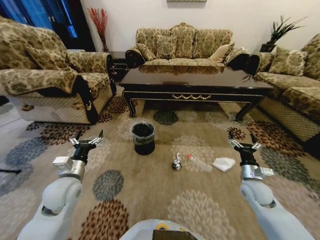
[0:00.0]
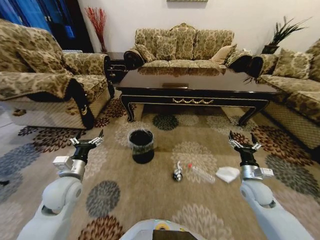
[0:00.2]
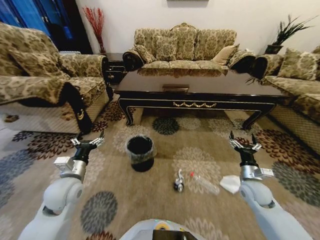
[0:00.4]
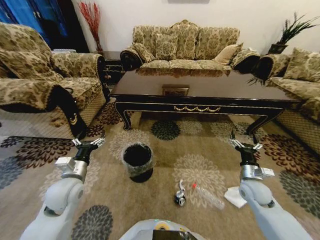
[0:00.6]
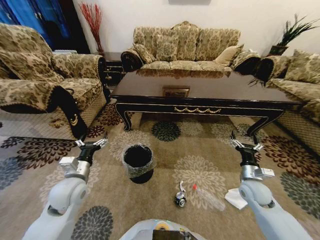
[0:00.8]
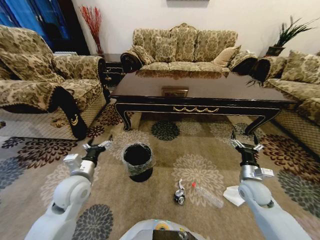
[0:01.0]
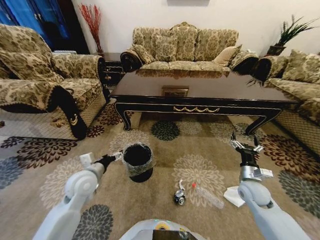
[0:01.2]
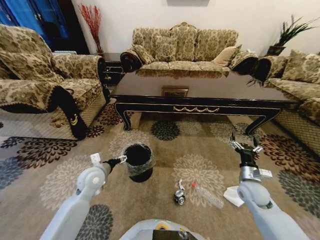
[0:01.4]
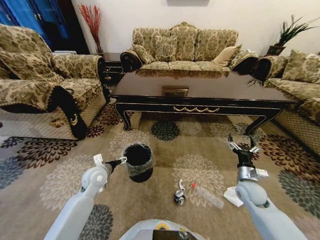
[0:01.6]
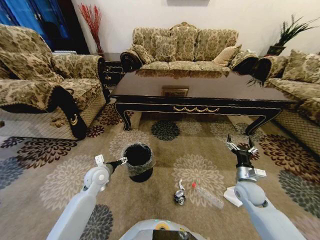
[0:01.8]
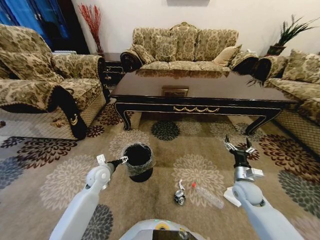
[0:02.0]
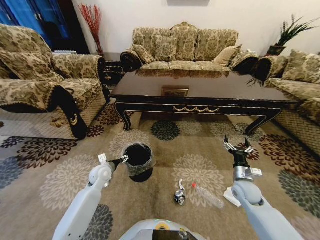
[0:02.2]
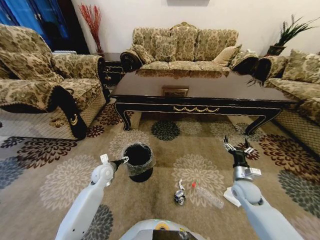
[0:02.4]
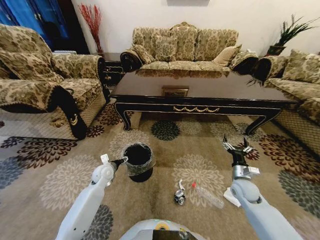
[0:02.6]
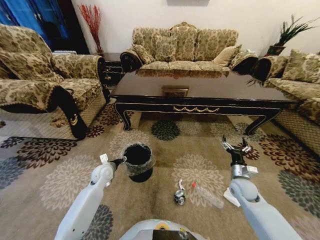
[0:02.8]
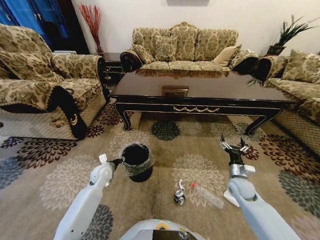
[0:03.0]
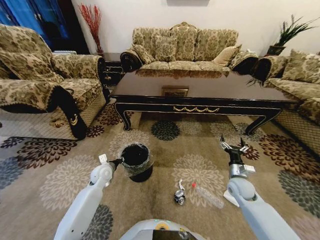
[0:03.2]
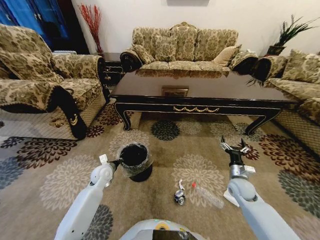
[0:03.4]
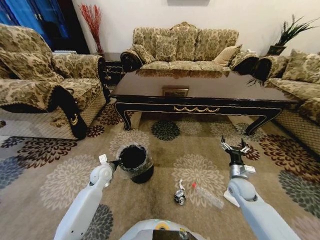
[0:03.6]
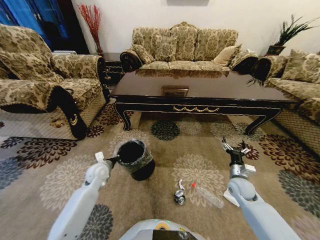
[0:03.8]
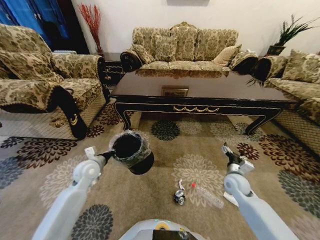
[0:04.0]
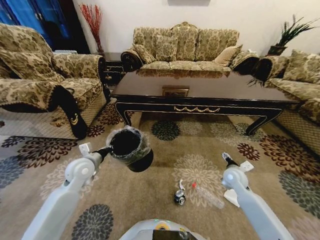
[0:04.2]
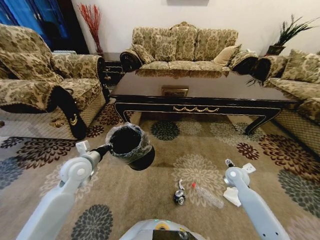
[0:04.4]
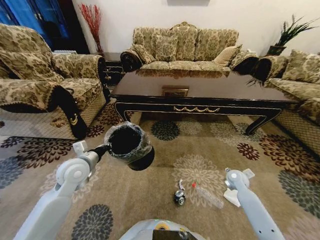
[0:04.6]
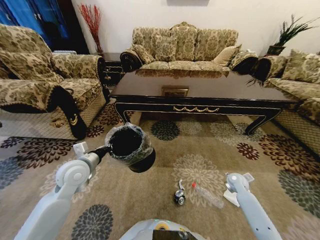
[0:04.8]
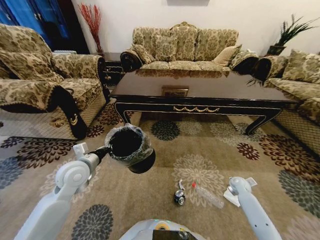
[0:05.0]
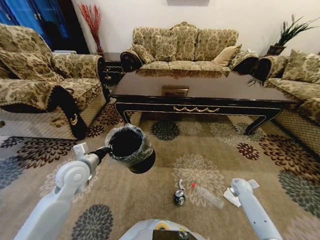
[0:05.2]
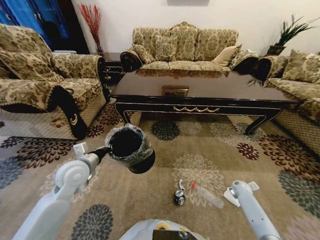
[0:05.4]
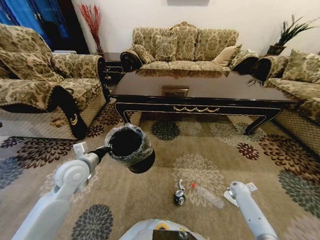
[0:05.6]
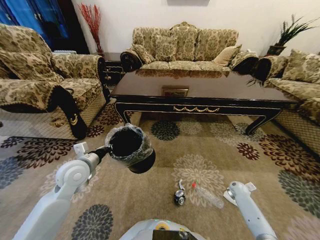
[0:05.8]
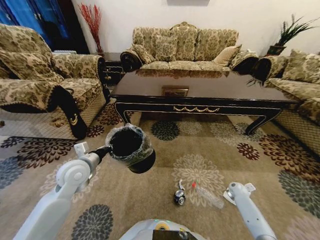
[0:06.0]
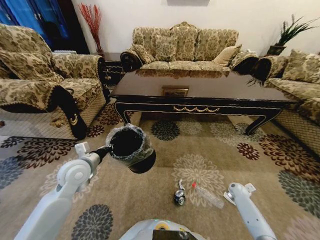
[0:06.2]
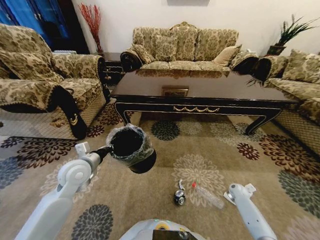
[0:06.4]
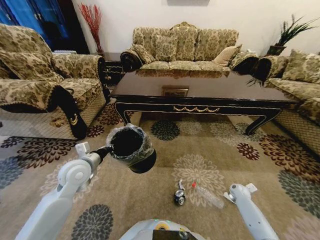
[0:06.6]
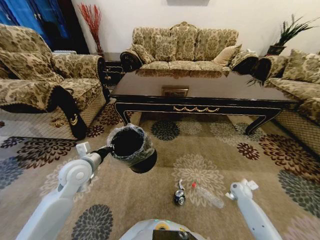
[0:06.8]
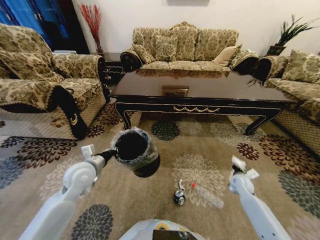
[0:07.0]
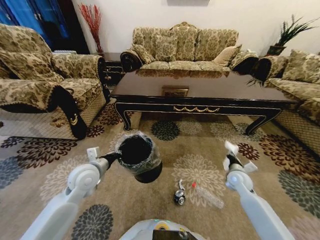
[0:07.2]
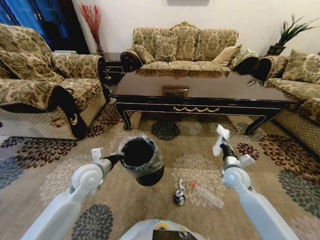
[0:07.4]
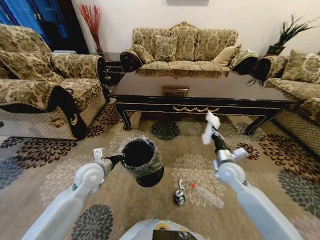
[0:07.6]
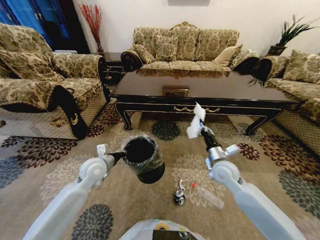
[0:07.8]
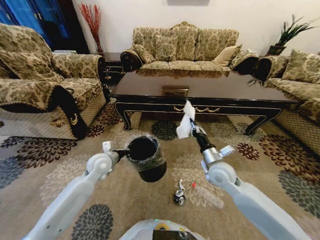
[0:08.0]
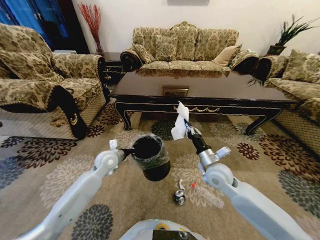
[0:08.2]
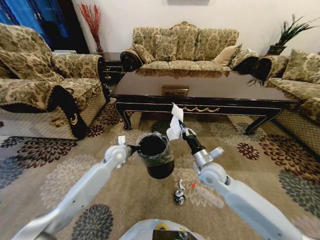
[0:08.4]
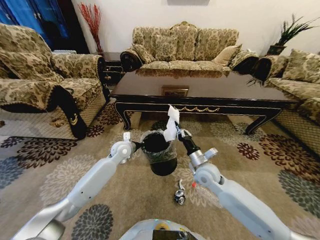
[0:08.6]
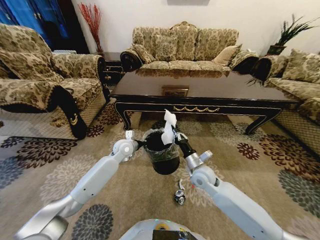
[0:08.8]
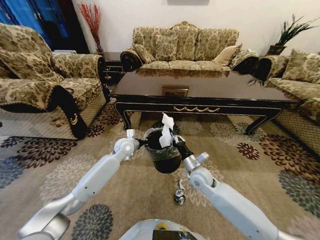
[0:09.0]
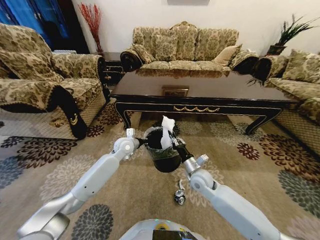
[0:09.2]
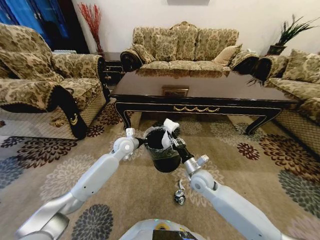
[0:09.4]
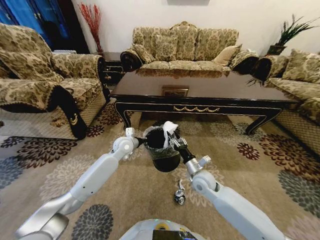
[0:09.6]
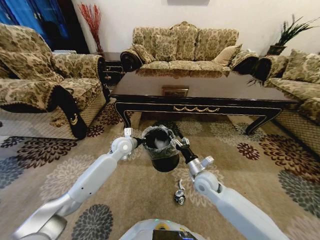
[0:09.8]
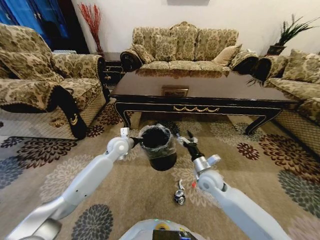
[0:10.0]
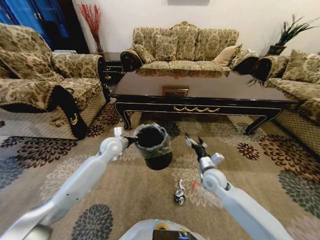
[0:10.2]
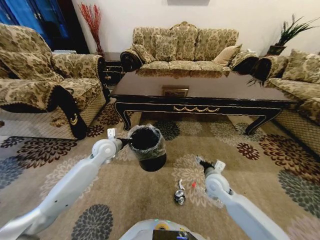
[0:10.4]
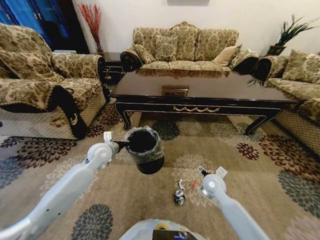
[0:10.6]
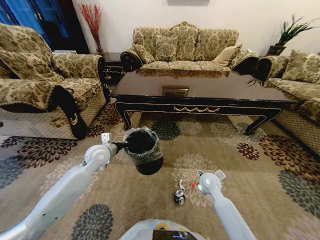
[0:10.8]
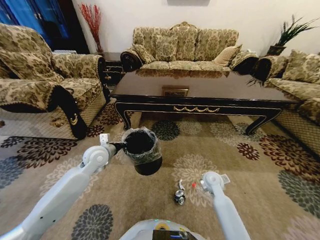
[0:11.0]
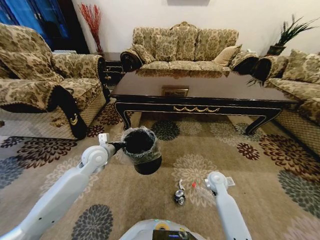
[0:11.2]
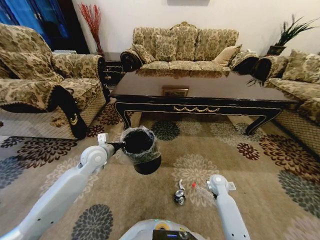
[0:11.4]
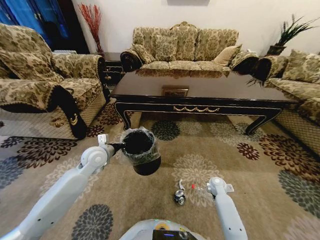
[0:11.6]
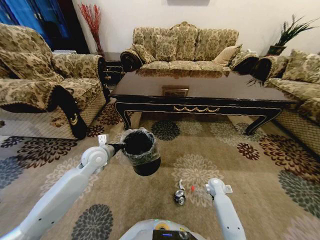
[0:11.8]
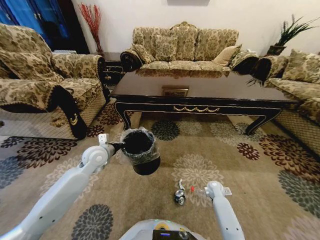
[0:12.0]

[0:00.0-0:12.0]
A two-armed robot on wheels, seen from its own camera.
Task of the whole recording: Move to the front of the table and pick up the trash from the floor, then place it into the trash bin.
0.0 to 1.6 s: The left gripper moves forward and downward, approximately 10 cm.
1.6 to 3.0 s: The left gripper travels downward by about 5 cm, and closes up.
3.0 to 4.4 s: The left gripper heads upward, covering roughly 15 cm, and closes; the right gripper travels forward by approximately 5 cm.
4.4 to 6.0 s: The right gripper is displaced downward and to the right by about 20 cm, and closes up.
6.0 to 7.6 s: The right gripper heads upward and to the left, covering about 30 cm, and closes its fingers. The left gripper changes place by some 5 cm.
7.6 to 9.0 s: The right gripper is displaced to the left by about 10 cm; the left gripper goes about 15 cm forward and to the right.
9.0 to 10.4 s: The left gripper travels to the left by roughly 5 cm. The right gripper moves to the right, approximately 5 cm, and opens.
10.4 to 12.0 s: The right gripper is displaced downward and to the right by some 20 cm.

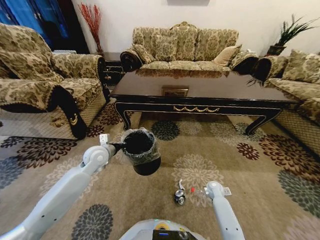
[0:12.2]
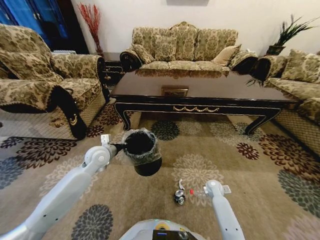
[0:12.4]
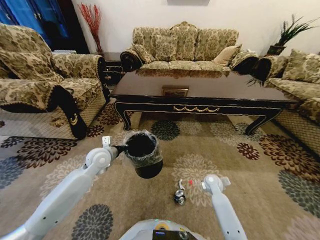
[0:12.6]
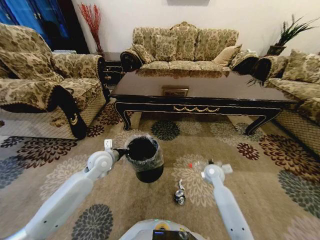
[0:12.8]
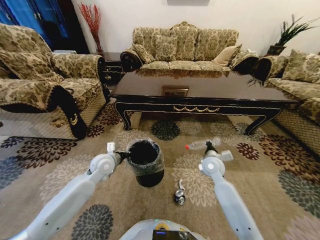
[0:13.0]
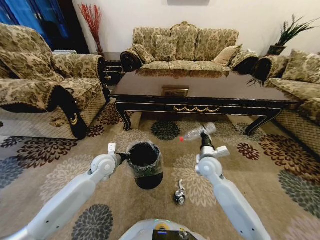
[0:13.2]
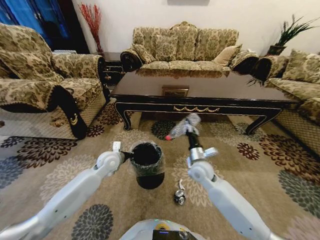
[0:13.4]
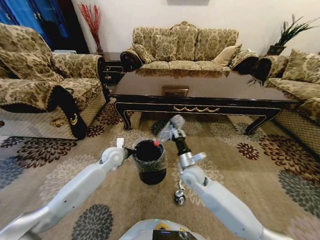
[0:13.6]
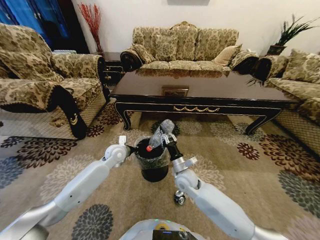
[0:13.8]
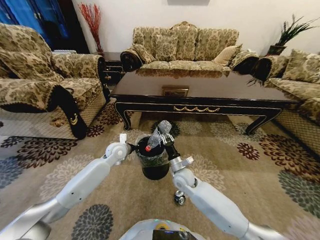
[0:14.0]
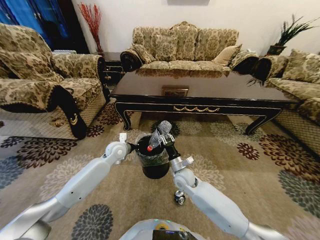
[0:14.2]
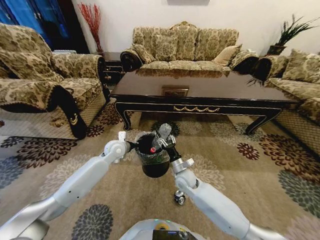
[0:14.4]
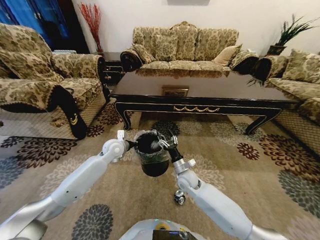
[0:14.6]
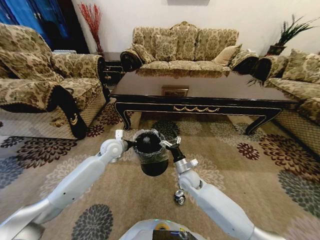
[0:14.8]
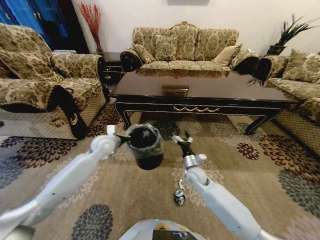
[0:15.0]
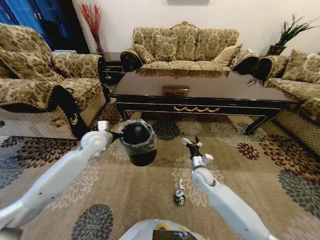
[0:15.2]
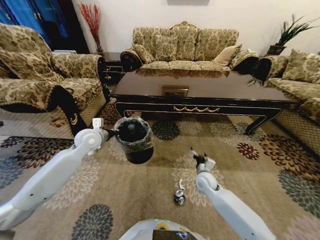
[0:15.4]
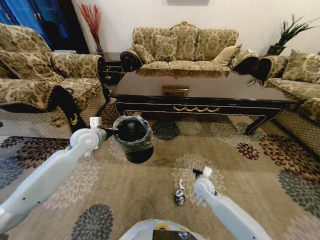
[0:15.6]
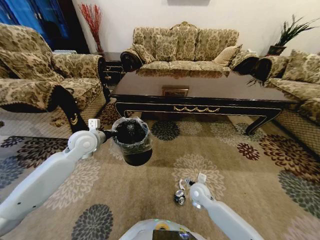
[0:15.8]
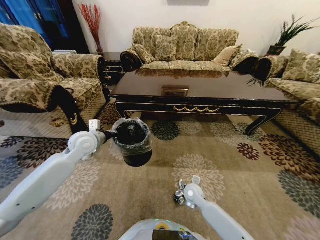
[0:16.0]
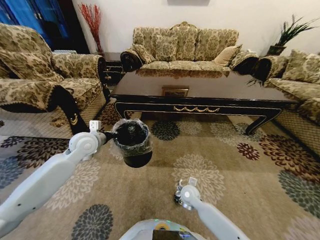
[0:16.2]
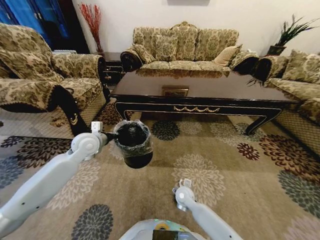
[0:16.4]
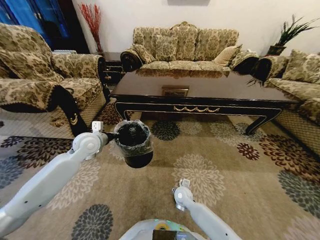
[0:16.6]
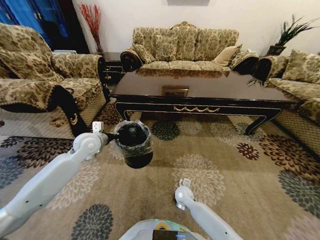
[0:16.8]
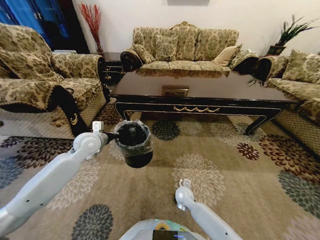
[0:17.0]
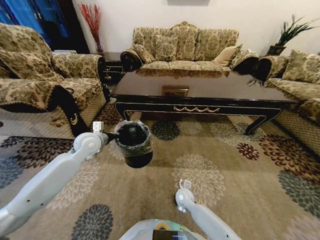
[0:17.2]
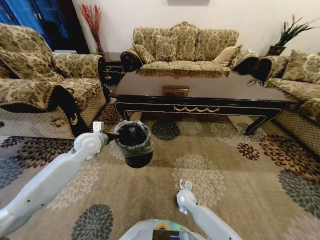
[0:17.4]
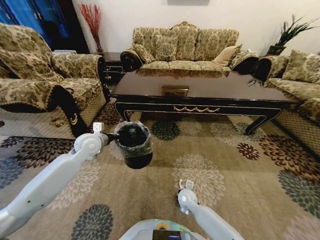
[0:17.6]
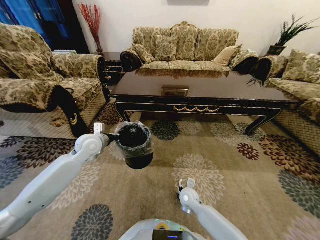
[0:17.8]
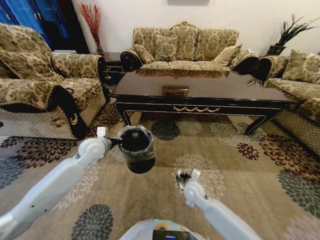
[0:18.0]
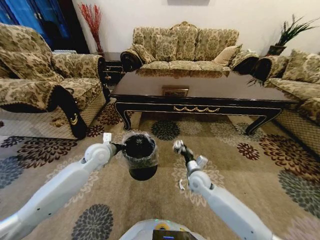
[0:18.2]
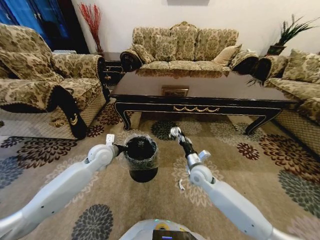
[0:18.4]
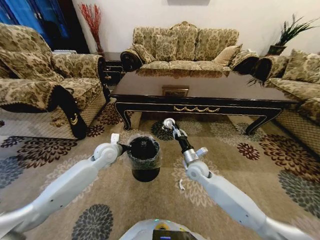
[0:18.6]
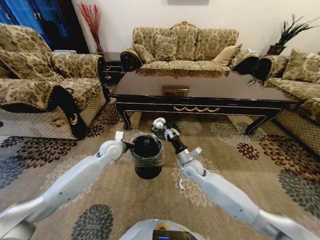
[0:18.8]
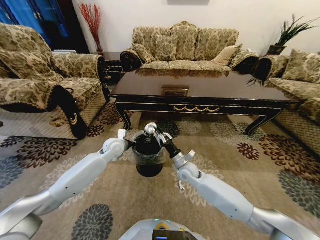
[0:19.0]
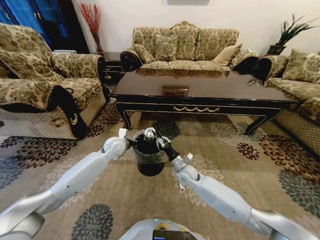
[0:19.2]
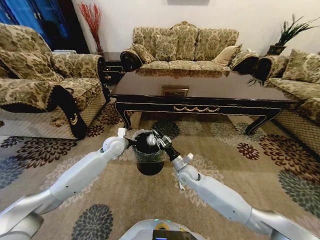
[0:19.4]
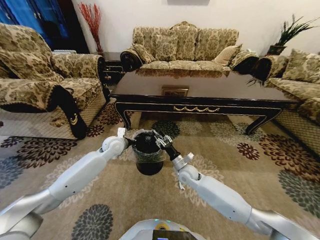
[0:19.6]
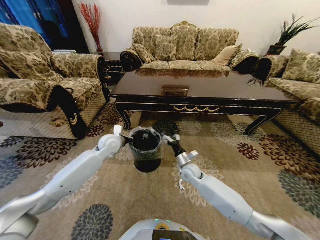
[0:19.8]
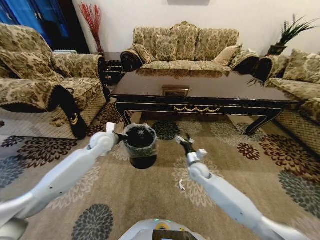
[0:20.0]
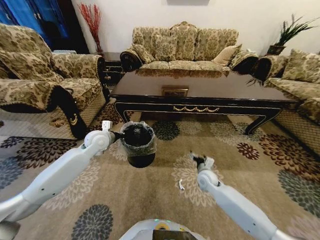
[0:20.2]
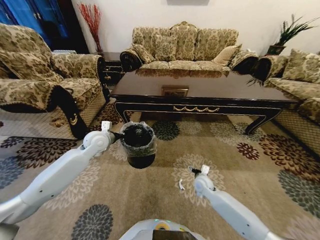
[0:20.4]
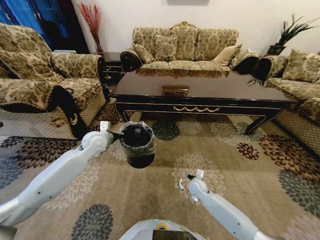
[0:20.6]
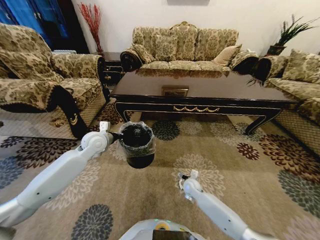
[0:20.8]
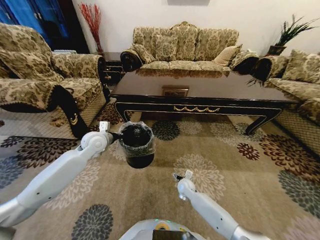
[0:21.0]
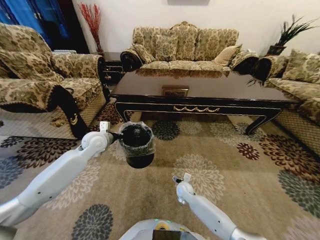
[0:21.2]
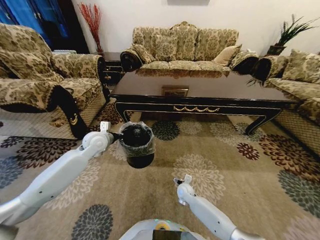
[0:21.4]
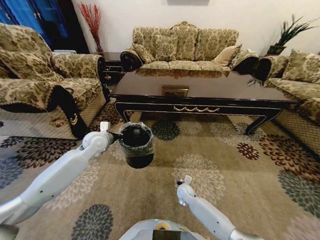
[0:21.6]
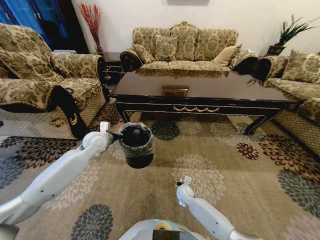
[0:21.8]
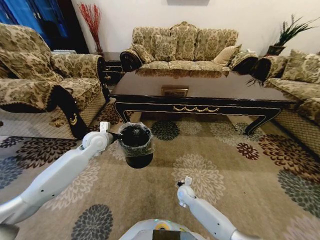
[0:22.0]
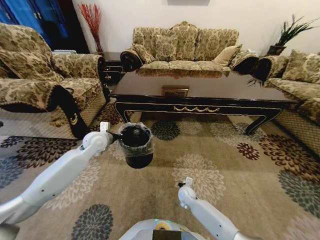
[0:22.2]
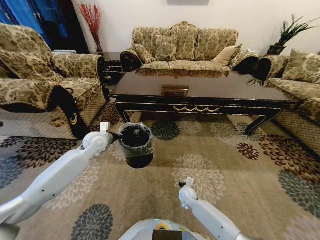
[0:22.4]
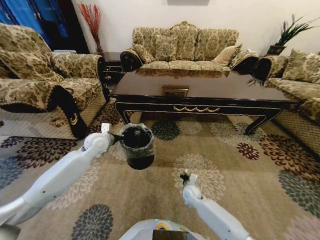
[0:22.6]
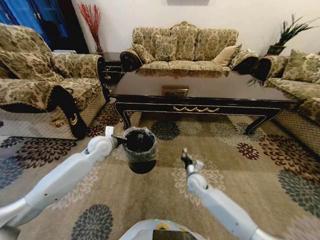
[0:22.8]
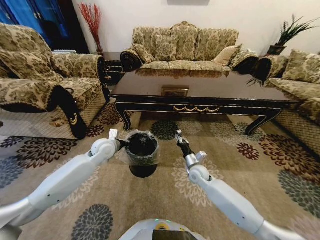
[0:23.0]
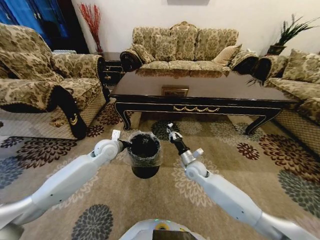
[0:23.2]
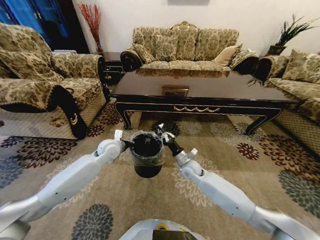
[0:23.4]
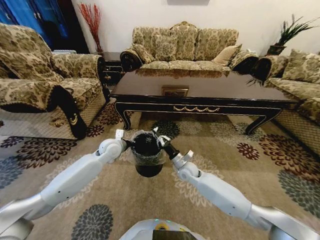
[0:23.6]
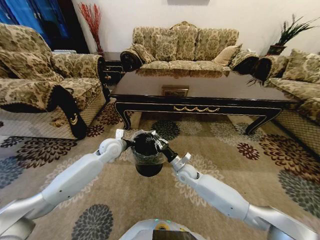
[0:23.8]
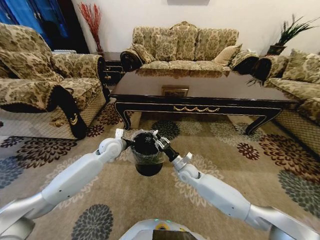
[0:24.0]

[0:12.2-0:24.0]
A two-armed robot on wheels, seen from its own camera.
Task of the whole recording: Move to the front of the table and pick up the trash from the floor, then place it into the trash bin.
12.2 to 13.6 s: The right gripper is displaced upward and to the left by about 25 cm, and closes. The left gripper shifts by roughly 5 cm.
13.6 to 15.2 s: The right gripper travels to the right and downward by roughly 10 cm, and opens. Meanwhile the left gripper goes about 10 cm upward and to the left.
15.2 to 16.6 s: The right gripper travels downward, to the left and backward by about 15 cm.
16.6 to 18.2 s: The right gripper heads upward and to the right, covering approximately 10 cm, and closes up, while the left gripper shifts about 5 cm downward.
18.2 to 19.6 s: The right gripper moves roughly 5 cm; the left gripper shifts roughly 5 cm forward.
19.6 to 21.0 s: The left gripper heads to the left and upward, covering approximately 10 cm. Meanwhile the right gripper goes about 10 cm downward, and opens.
21.0 to 22.6 s: The right gripper closes its fingers.
22.6 to 24.0 s: The left gripper goes about 5 cm to the right, while the right gripper moves upward and forward, about 15 cm.
